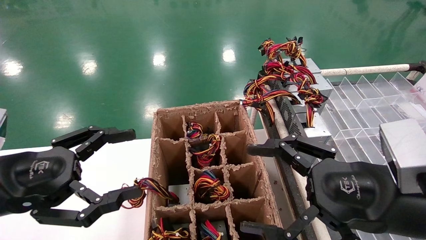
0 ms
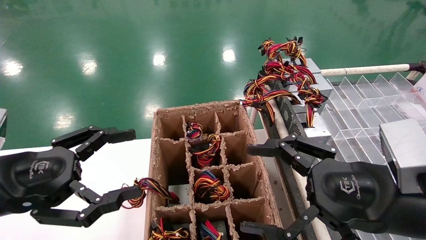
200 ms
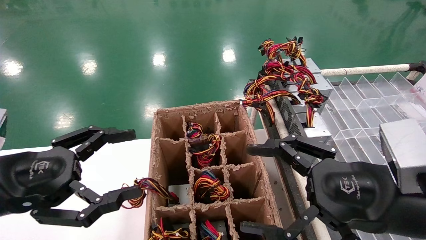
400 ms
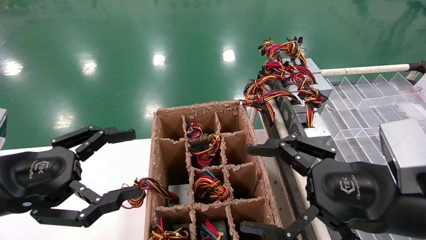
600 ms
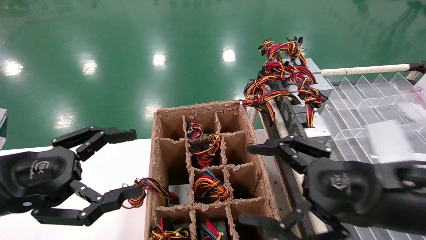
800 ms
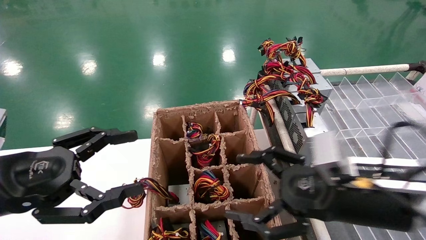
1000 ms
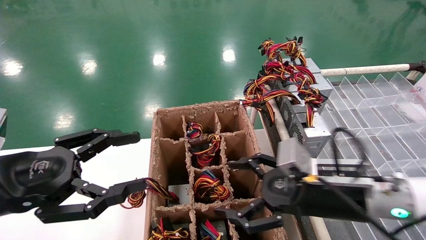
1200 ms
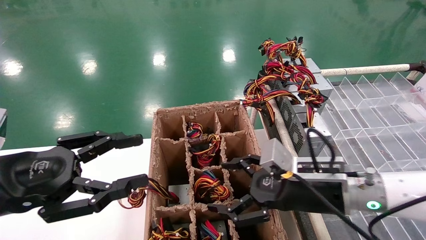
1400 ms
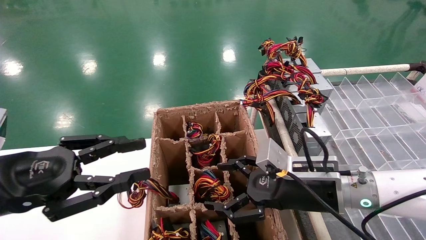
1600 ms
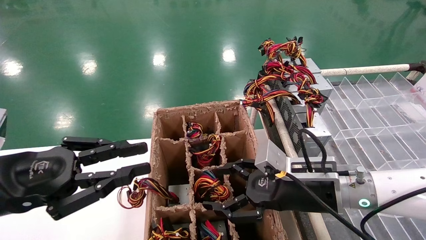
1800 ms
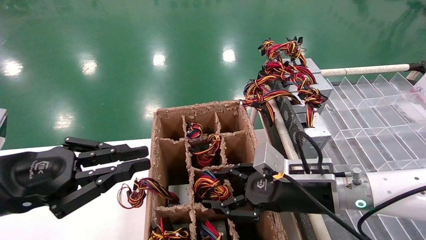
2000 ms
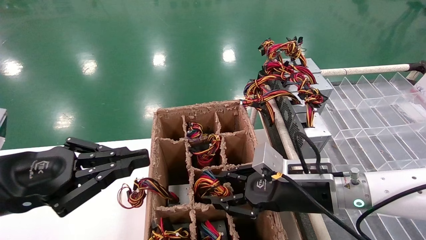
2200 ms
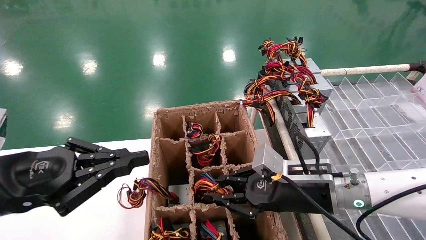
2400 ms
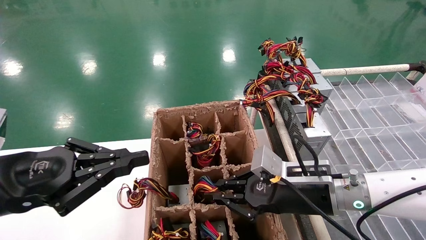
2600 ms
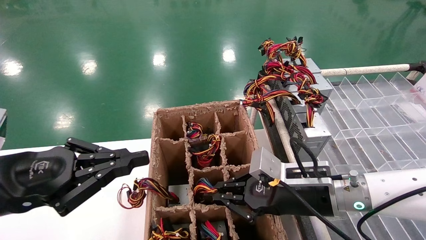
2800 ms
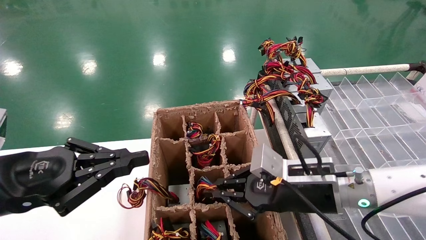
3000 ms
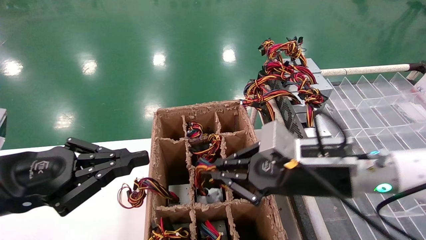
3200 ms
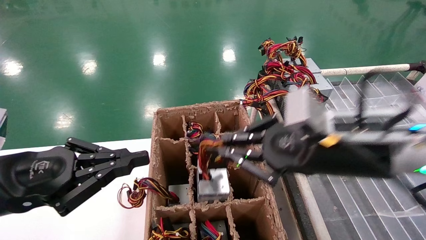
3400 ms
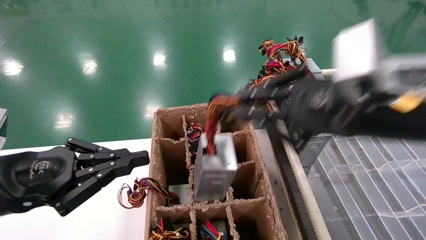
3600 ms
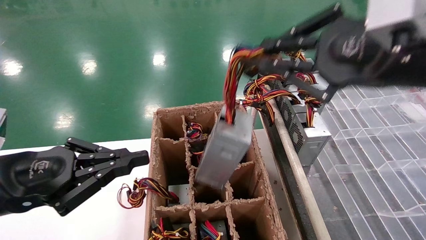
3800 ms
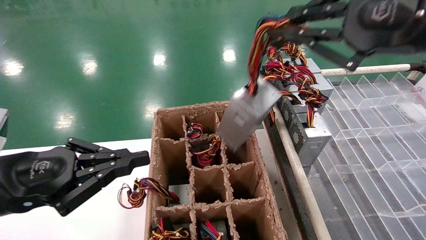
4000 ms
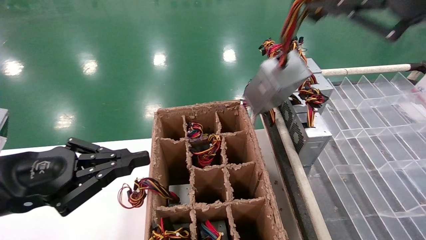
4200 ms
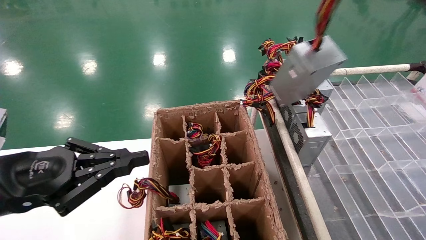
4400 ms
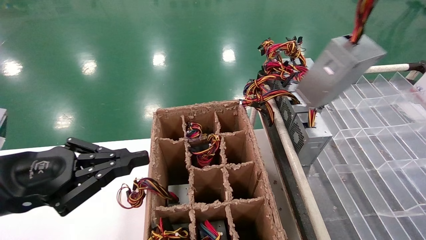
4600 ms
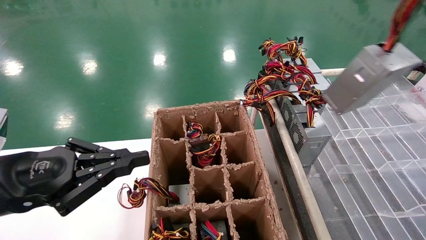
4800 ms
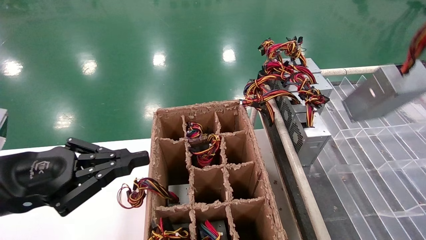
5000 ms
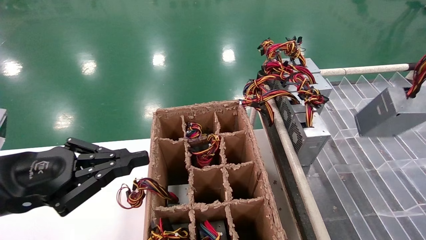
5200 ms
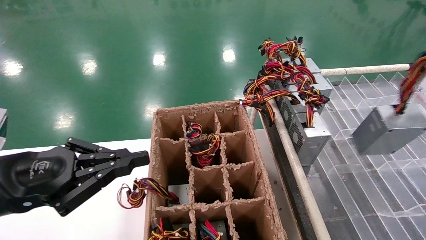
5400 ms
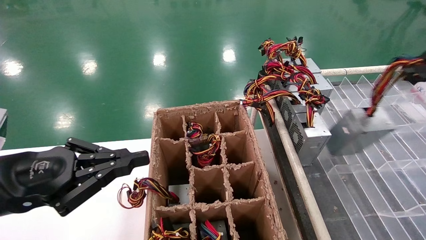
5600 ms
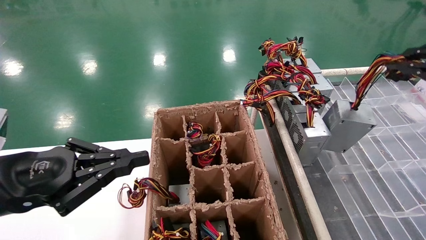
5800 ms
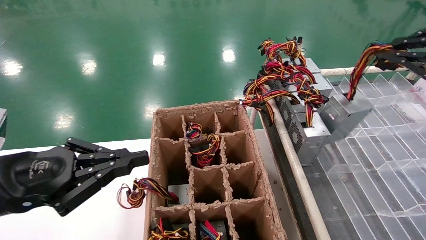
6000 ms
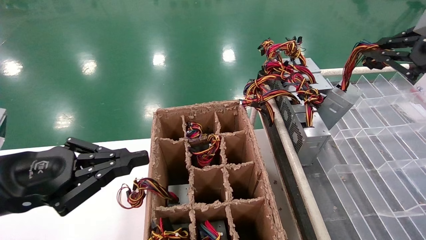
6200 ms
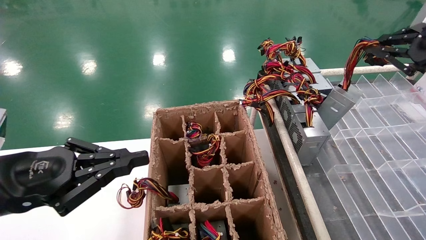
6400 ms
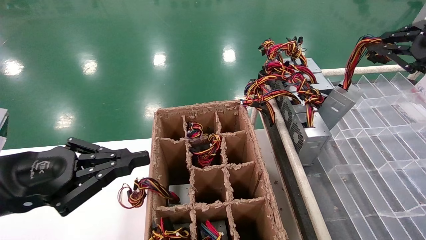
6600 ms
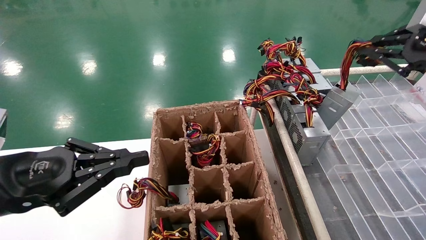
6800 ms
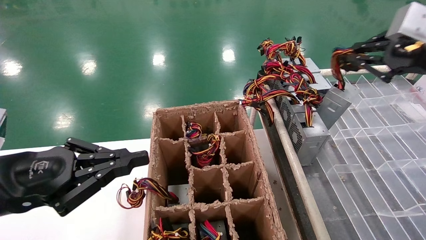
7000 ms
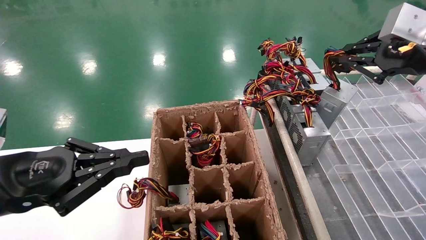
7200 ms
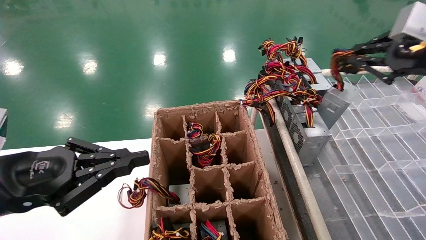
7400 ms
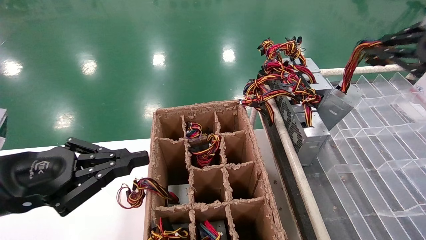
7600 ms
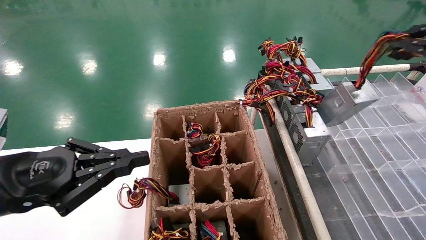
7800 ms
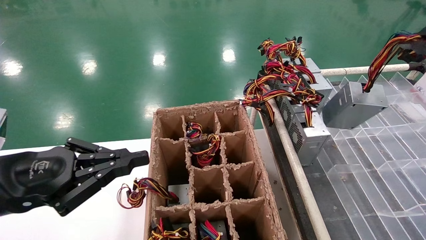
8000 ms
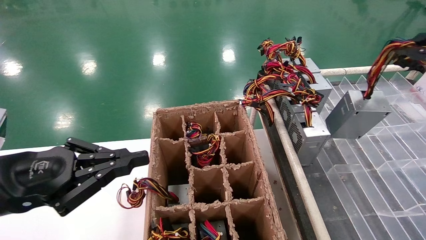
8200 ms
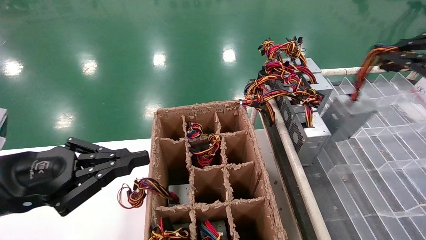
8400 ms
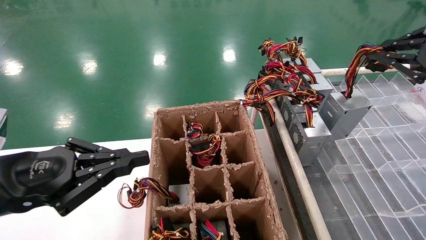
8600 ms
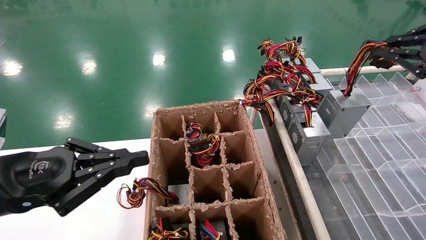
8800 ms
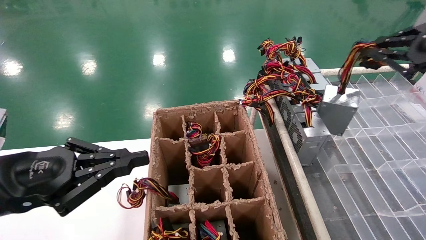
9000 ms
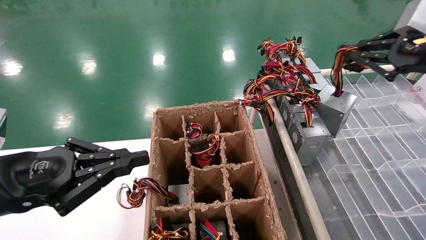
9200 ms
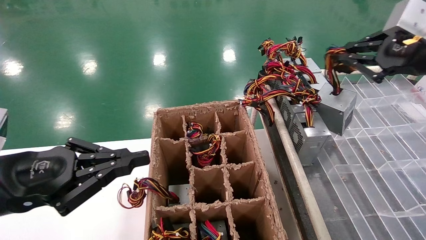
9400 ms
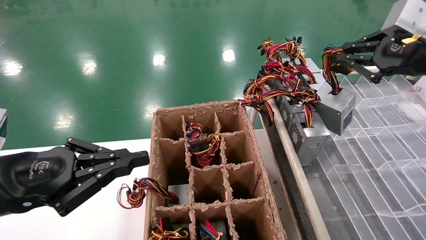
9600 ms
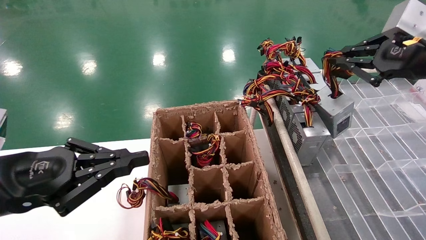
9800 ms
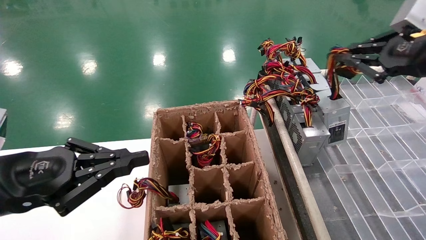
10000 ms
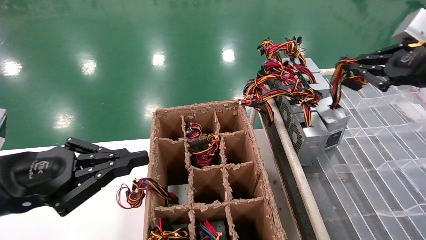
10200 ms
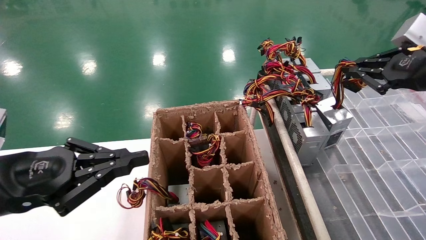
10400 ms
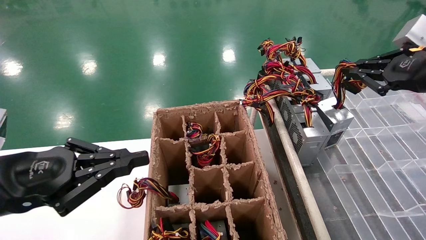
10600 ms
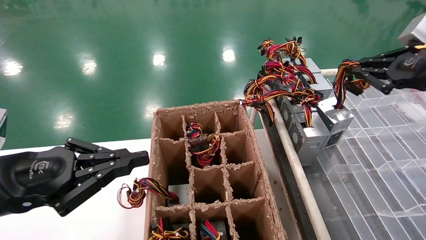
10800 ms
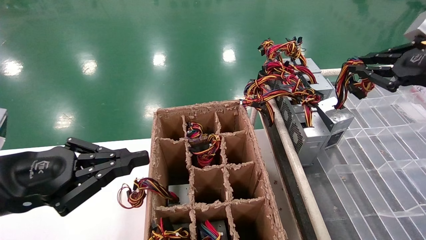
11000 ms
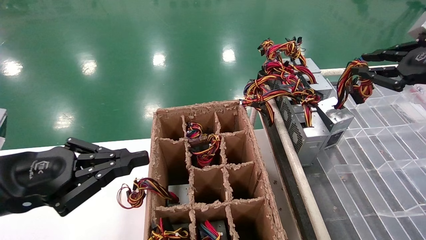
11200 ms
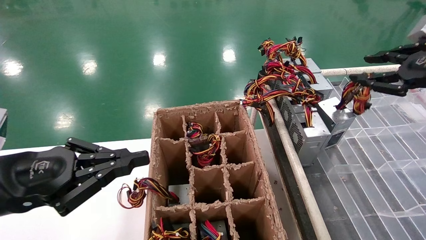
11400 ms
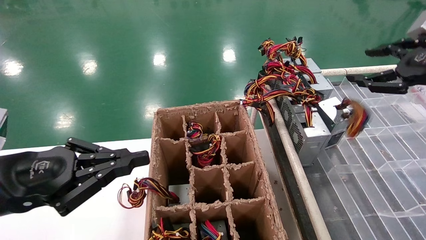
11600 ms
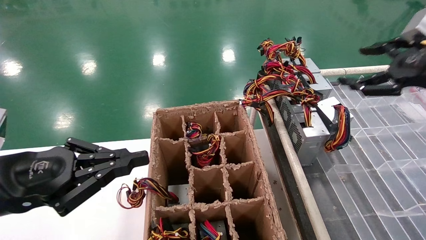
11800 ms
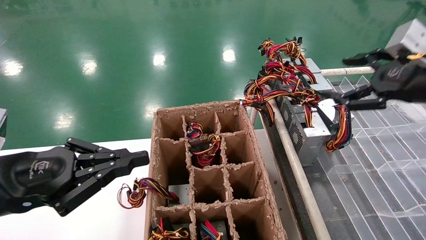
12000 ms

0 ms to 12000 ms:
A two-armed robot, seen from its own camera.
Step, 1200 ms to 2600 ms: Grab the main unit power supply from the containment box.
Step, 2800 ms to 11400 ms: Place the main unit power supply in the designated area.
0 ms to 1600 ms: The left gripper closes, while the right gripper travels forward, downward and to the left by some 15 cm.
1600 ms to 3000 ms: The left gripper closes its fingers; the right gripper closes its fingers.
3000 ms to 4400 ms: The right gripper heads upward, backward and to the right, covering some 35 cm.
4400 ms to 6000 ms: The right gripper is displaced forward, to the right and downward by about 15 cm.
6000 ms to 9000 ms: The grippers make only small movements.
9000 ms to 10400 ms: The grippers make only small movements.
10400 ms to 12000 ms: The right gripper opens its fingers.

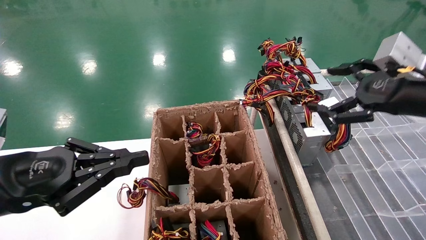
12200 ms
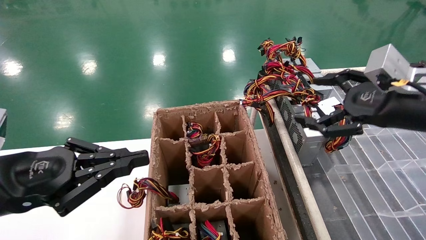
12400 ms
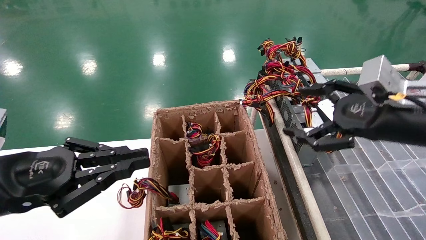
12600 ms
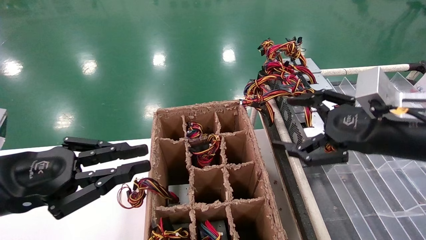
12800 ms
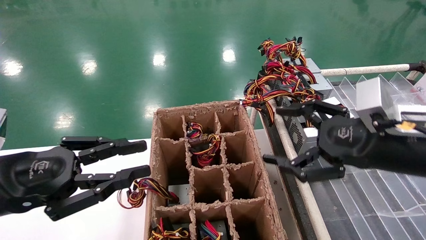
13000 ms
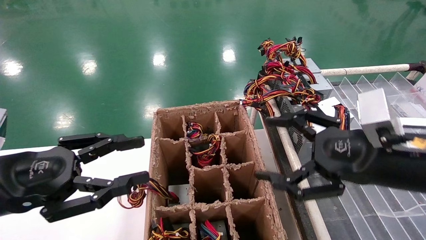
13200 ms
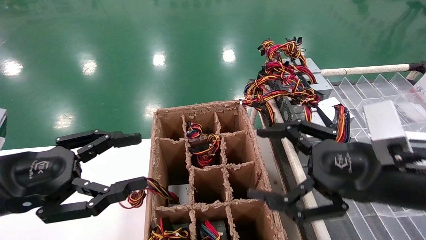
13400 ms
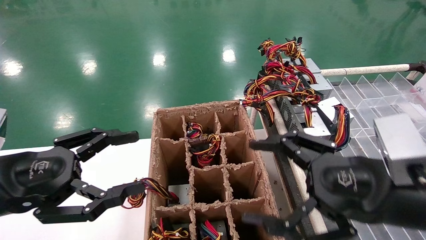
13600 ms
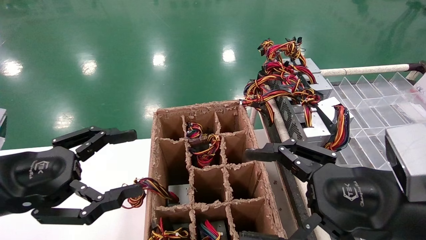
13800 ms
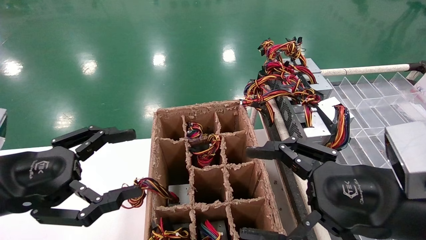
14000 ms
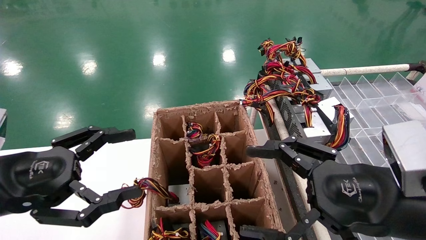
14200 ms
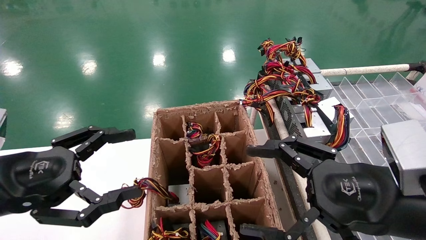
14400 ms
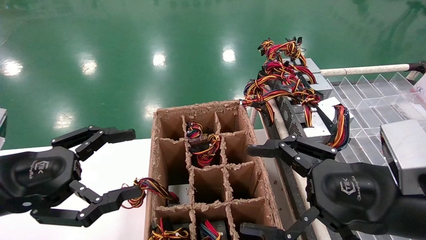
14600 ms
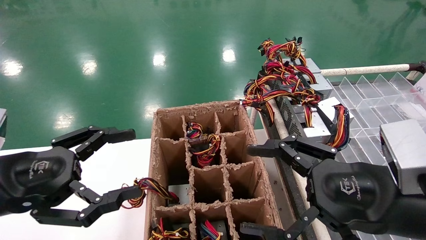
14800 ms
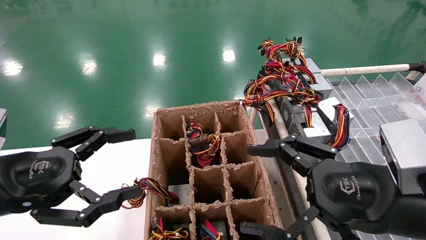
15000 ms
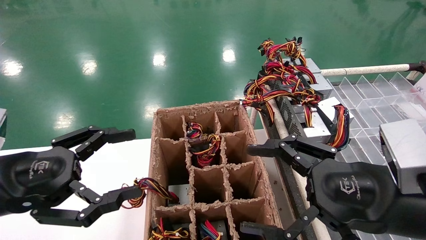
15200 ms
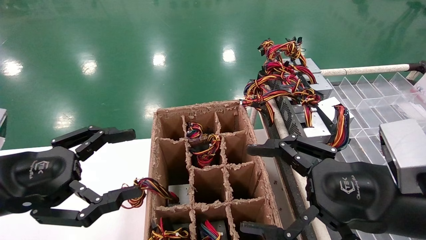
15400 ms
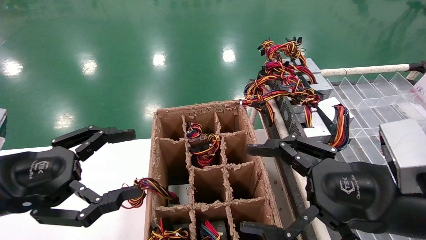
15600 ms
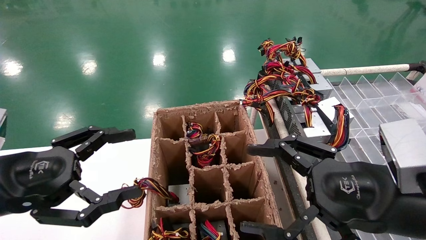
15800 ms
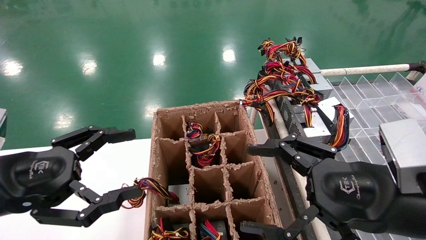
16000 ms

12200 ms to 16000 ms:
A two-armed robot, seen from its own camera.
12200 ms to 13400 ms: The left gripper opens its fingers, while the right gripper travels to the left, downward and backward by roughly 15 cm.
13400 ms to 14800 ms: The left gripper opens its fingers.
14800 ms to 16000 ms: Both grippers stay put.

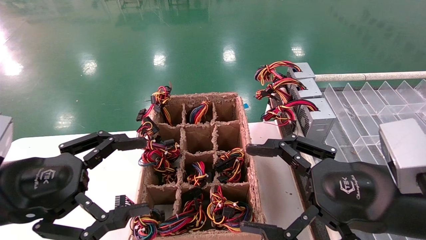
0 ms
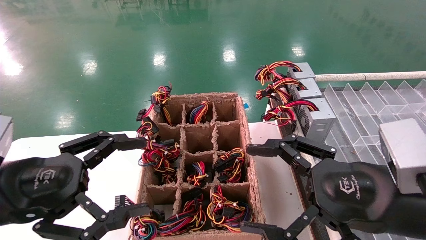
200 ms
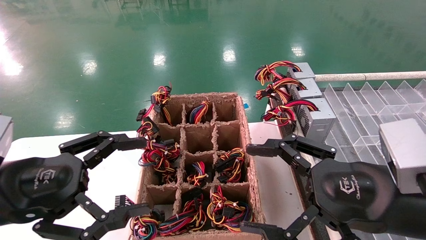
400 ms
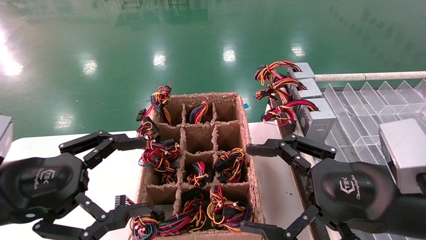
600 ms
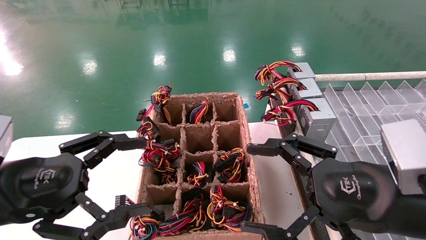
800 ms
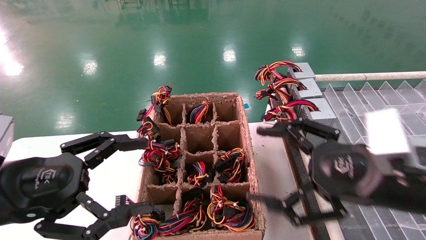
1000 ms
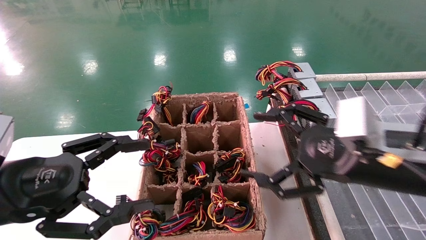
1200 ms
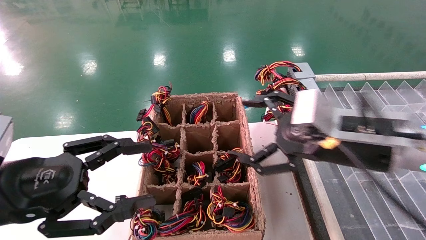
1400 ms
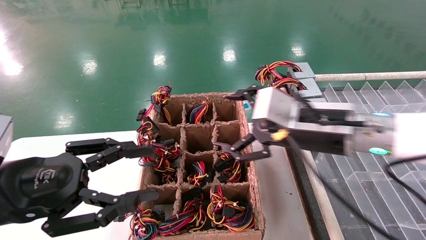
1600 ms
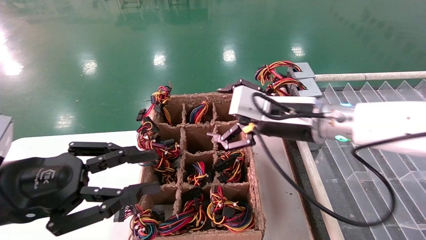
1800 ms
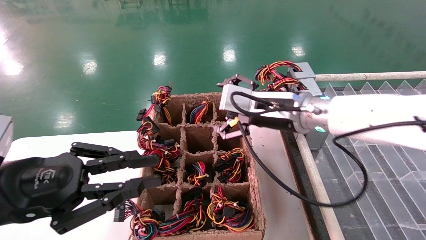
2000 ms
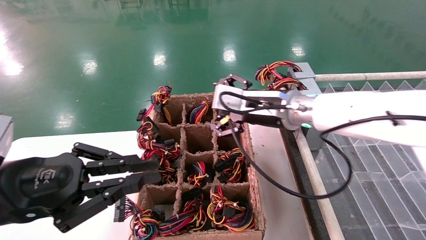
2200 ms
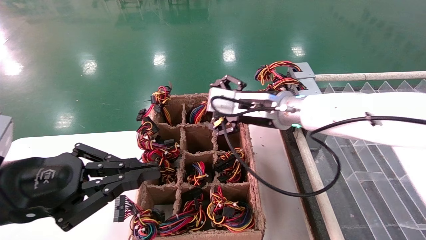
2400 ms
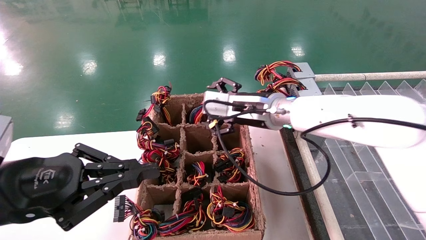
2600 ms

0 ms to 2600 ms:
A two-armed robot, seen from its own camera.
0 ms to 1200 ms: The right gripper moves roughly 5 cm.
1200 ms to 2600 ms: The right gripper shifts approximately 20 cm forward and to the left. Meanwhile the left gripper closes.
